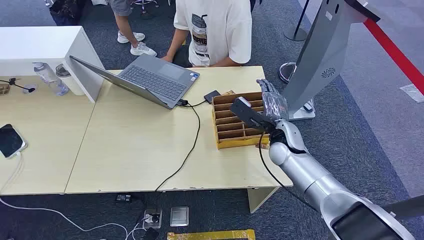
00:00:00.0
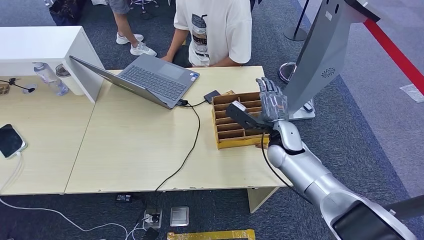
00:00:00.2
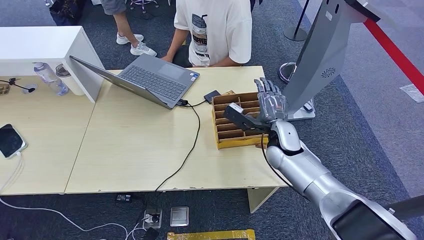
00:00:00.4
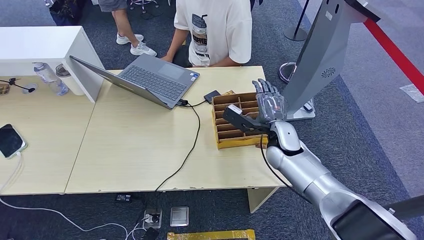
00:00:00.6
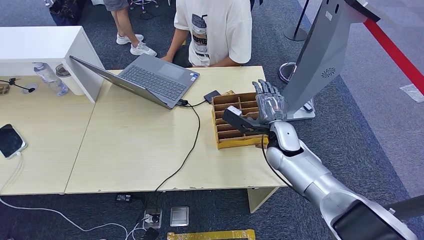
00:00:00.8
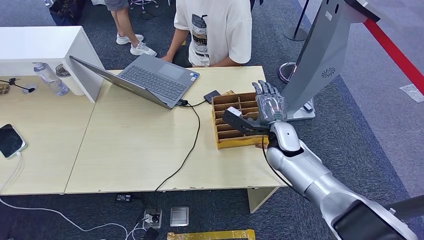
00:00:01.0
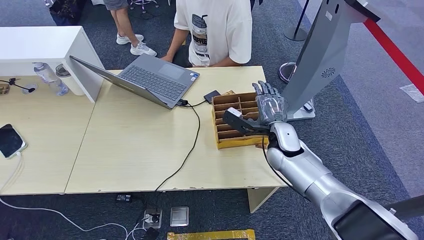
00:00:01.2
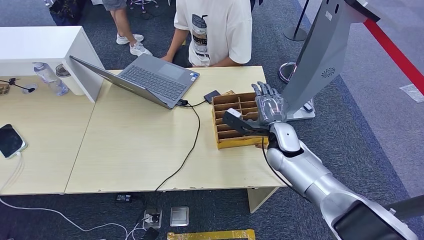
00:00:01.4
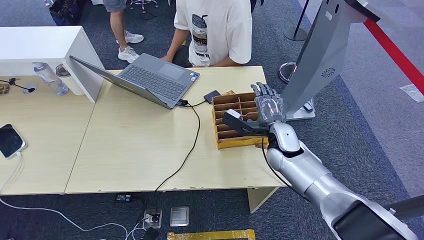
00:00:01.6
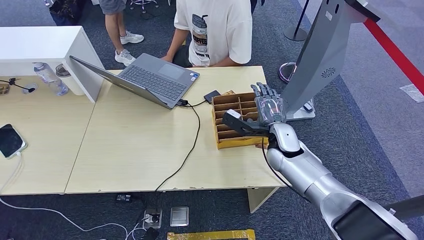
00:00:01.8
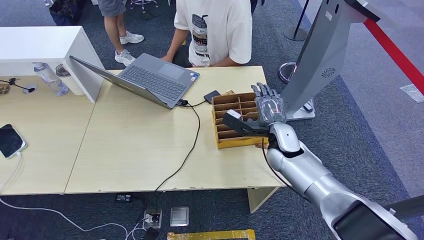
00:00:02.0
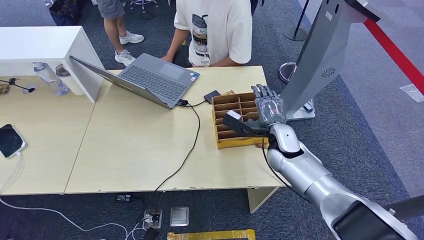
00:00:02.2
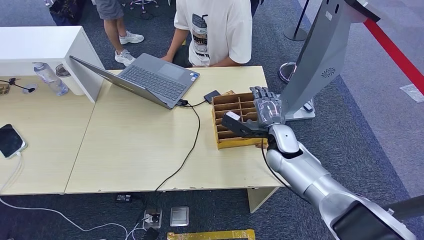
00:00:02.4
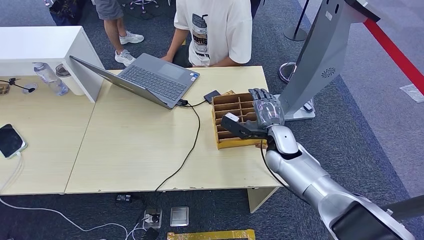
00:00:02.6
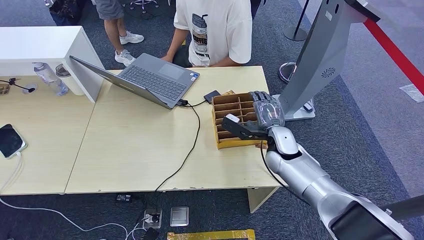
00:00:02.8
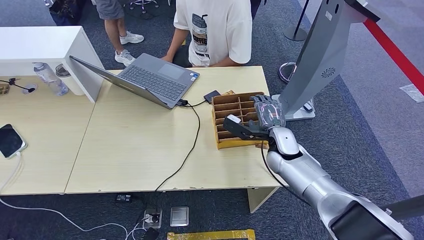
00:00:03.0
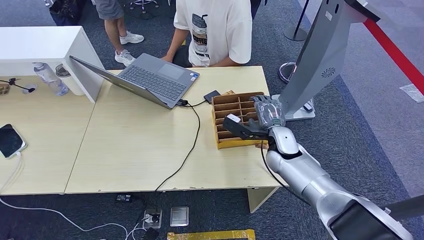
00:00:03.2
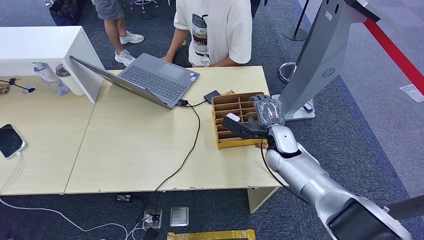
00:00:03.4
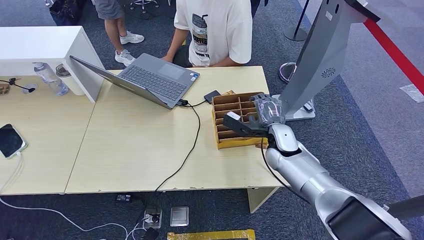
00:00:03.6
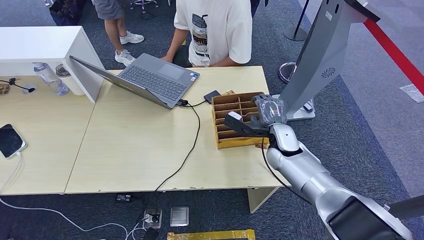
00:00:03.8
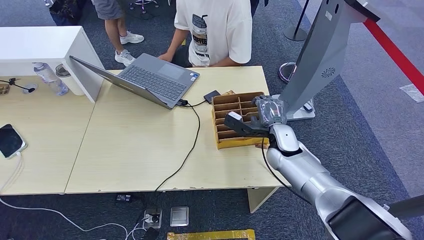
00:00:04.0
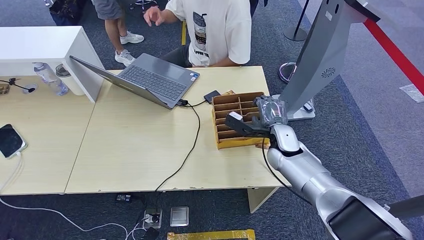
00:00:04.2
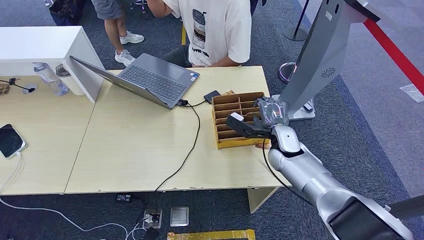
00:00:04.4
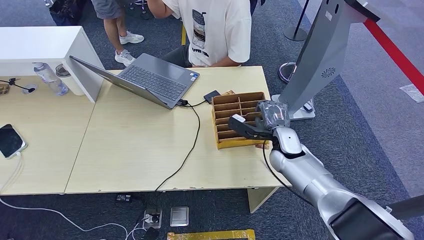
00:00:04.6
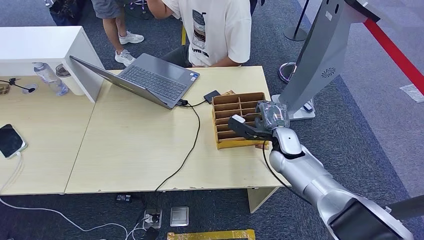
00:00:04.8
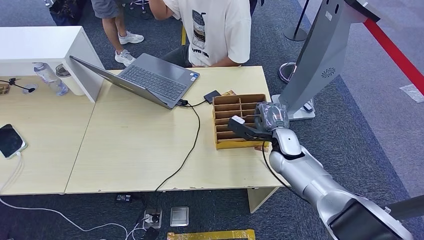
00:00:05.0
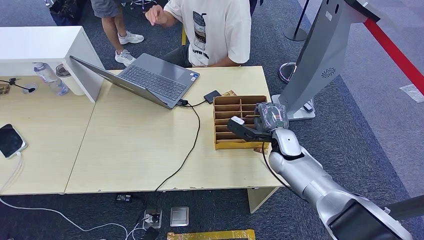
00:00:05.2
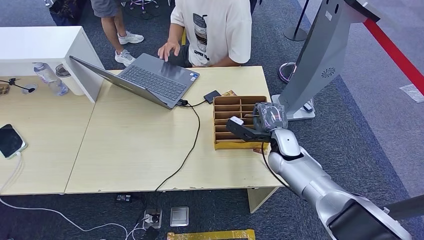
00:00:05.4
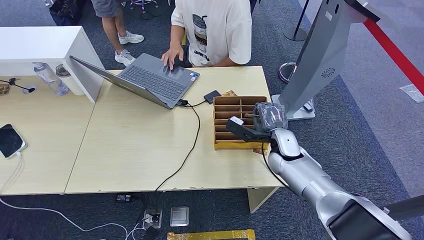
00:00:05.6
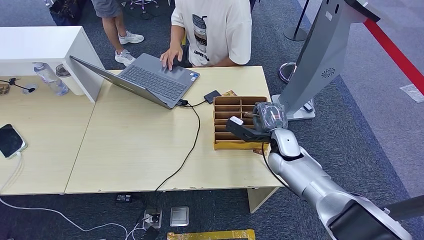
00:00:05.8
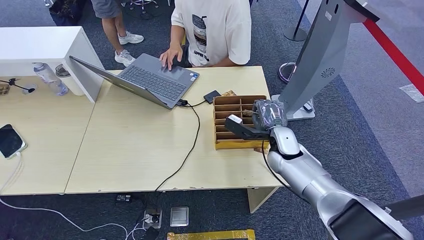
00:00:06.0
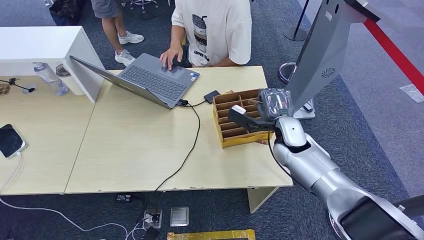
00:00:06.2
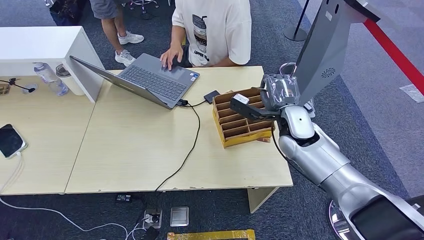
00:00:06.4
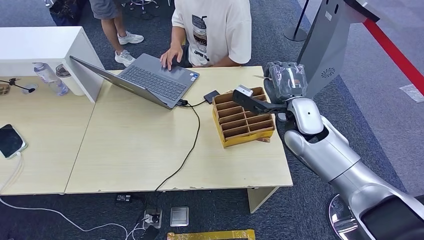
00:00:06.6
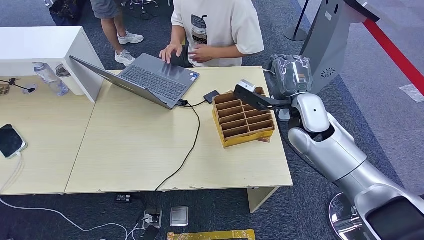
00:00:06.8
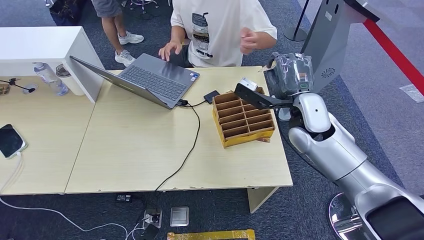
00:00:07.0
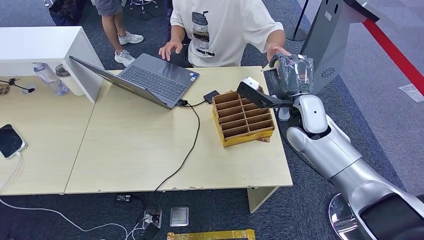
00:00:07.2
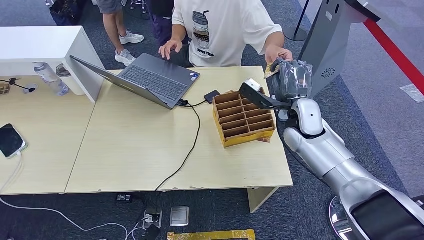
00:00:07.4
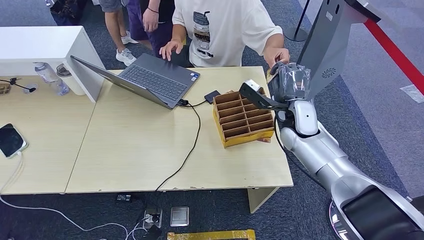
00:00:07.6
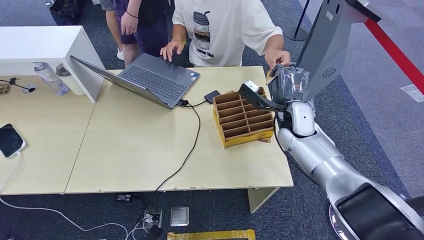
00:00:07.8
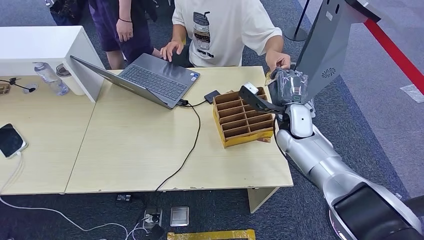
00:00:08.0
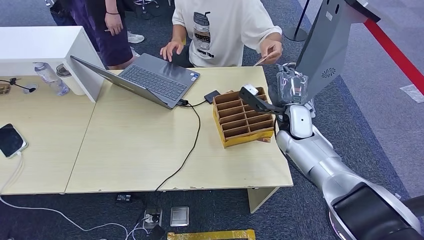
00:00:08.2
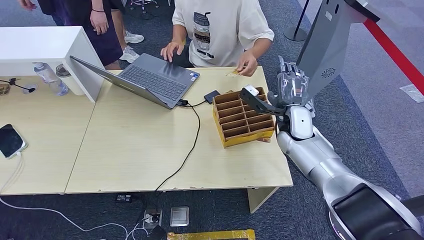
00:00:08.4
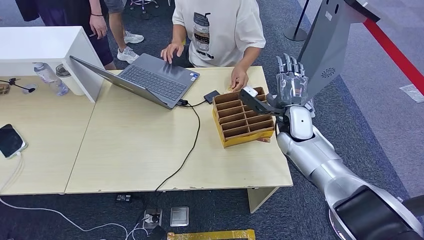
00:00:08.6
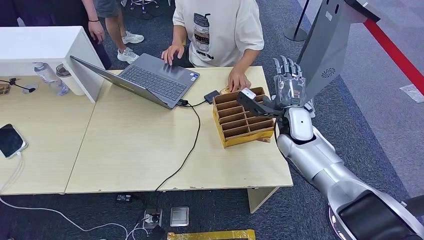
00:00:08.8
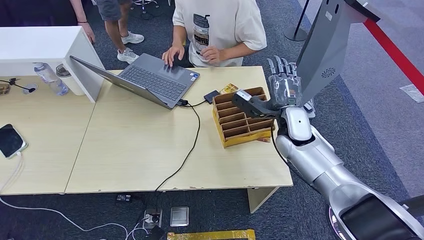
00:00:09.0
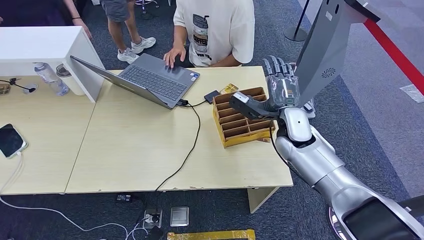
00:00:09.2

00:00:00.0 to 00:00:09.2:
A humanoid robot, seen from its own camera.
Step, 00:00:00.0 to 00:00:06.0: Pick up the key card from the card box.
Step, 00:00:06.2 to 00:00:09.2: Hand the key card to the target.
00:00:01.6 to 00:00:06.2: The hands make only small movements.
00:00:07.6 to 00:00:09.2: There are only small adjustments of the hands.
